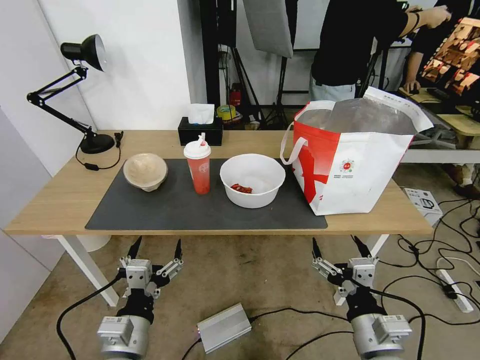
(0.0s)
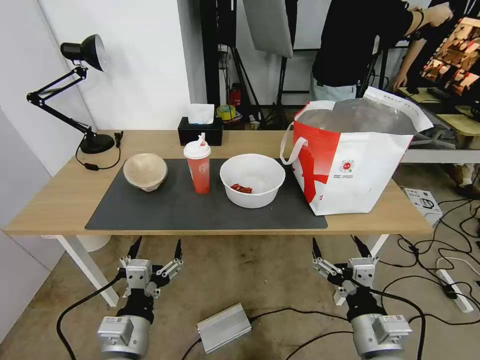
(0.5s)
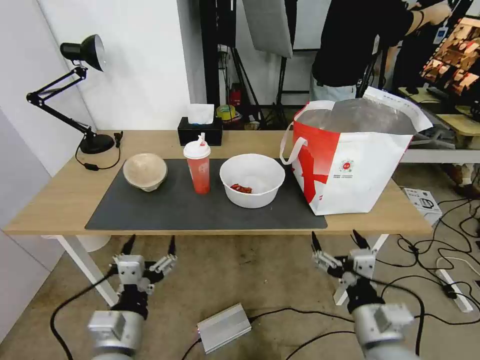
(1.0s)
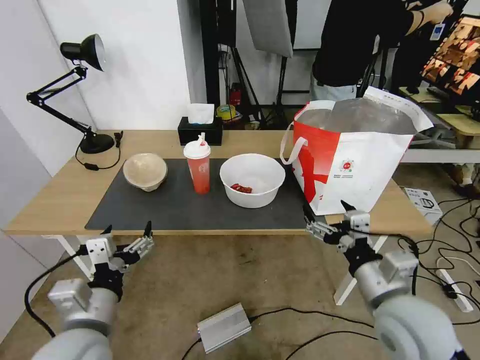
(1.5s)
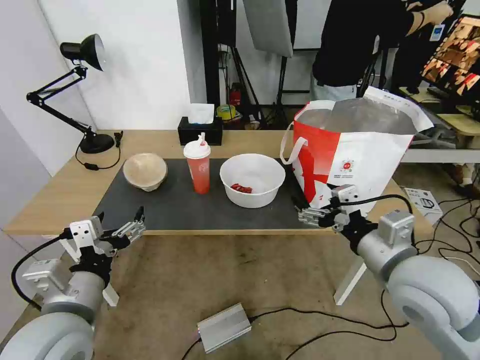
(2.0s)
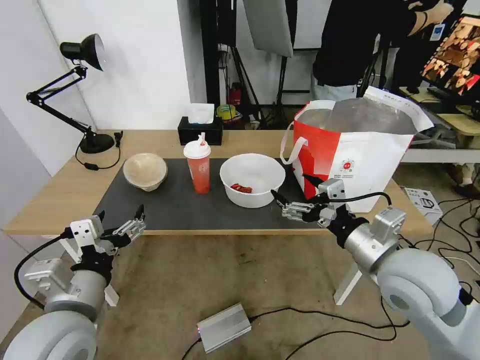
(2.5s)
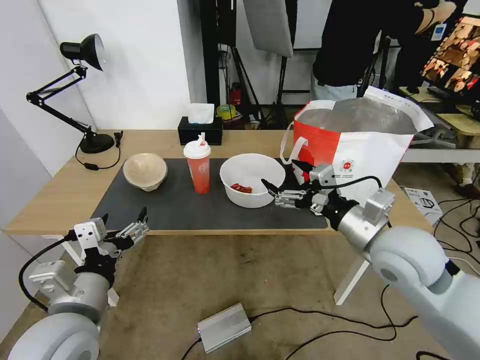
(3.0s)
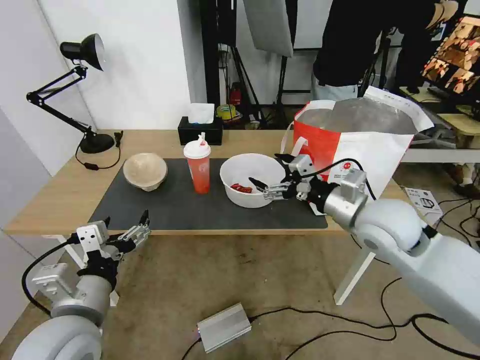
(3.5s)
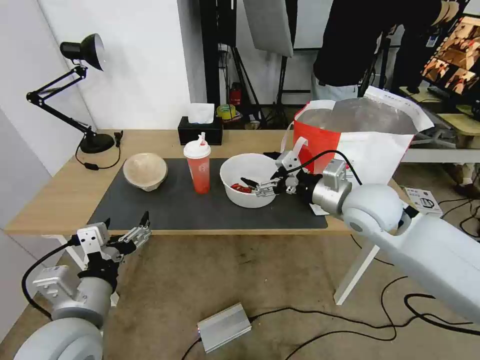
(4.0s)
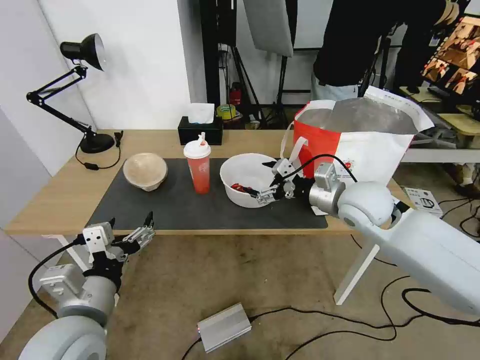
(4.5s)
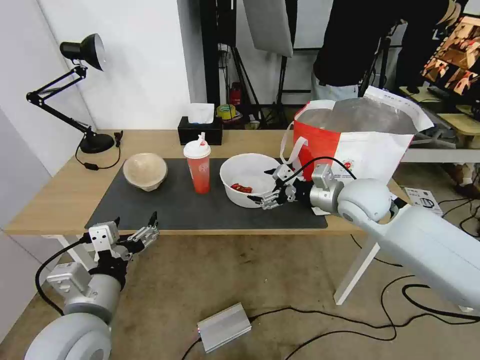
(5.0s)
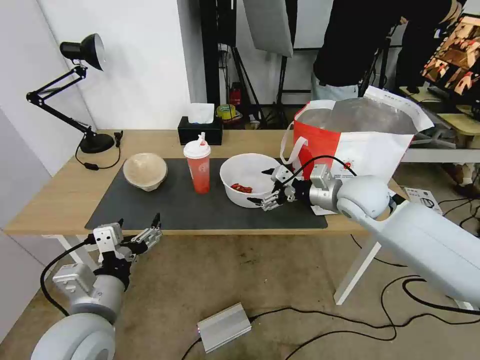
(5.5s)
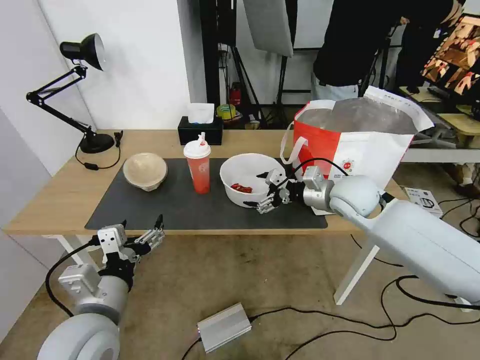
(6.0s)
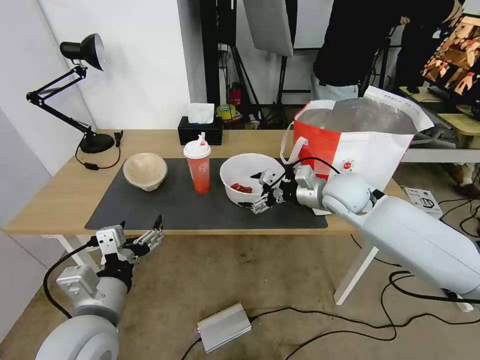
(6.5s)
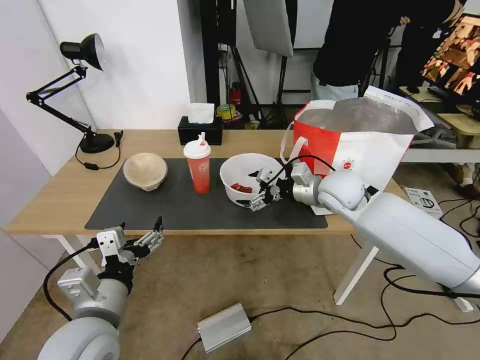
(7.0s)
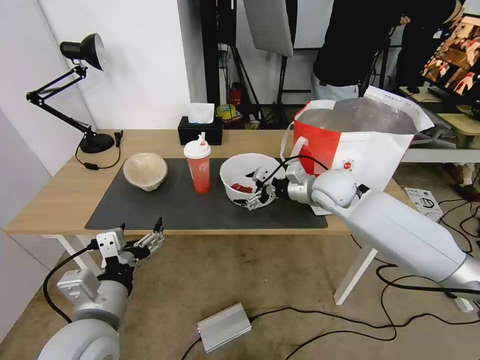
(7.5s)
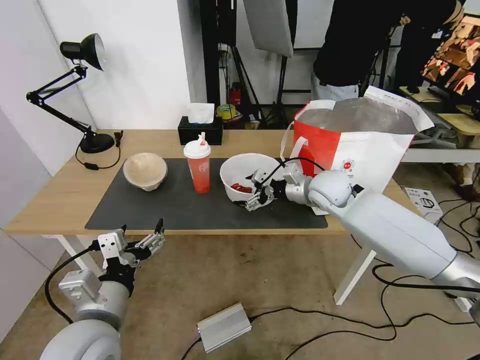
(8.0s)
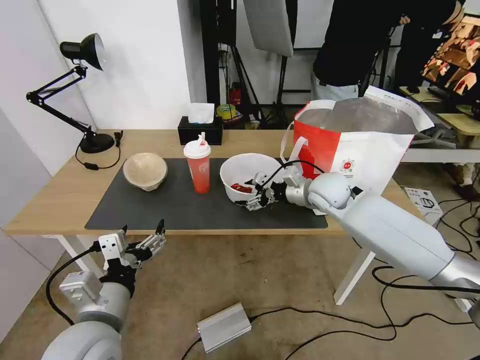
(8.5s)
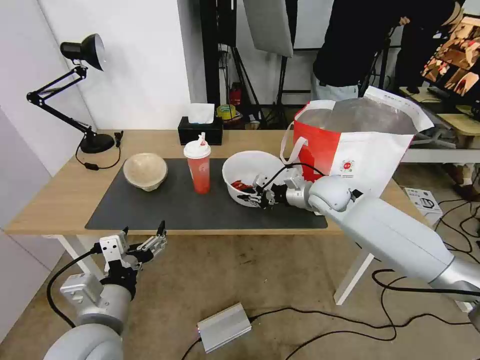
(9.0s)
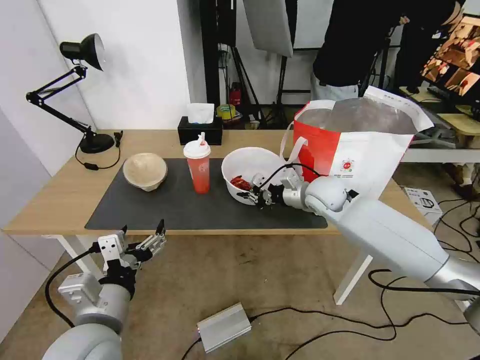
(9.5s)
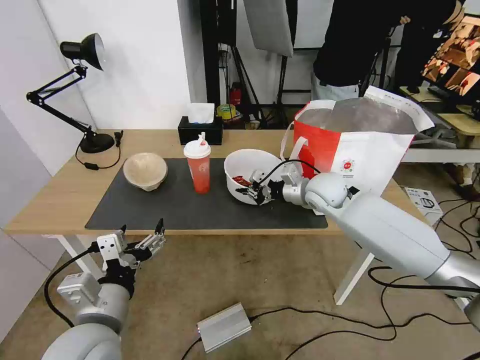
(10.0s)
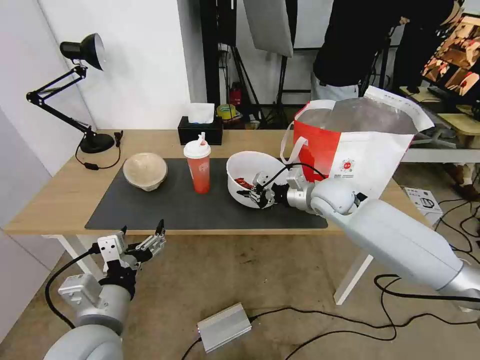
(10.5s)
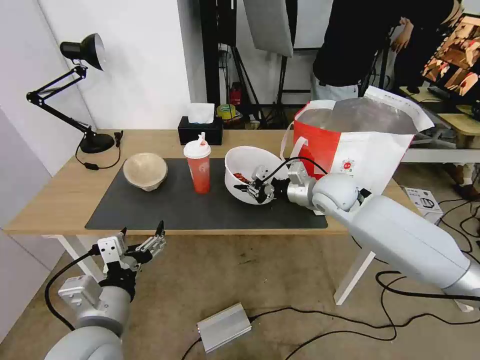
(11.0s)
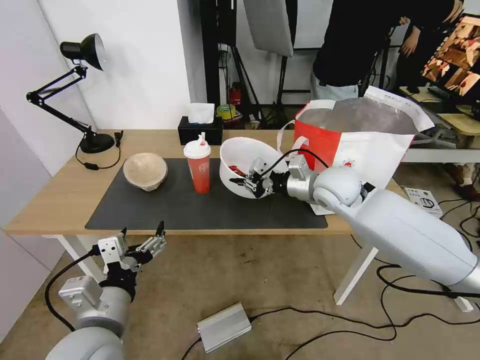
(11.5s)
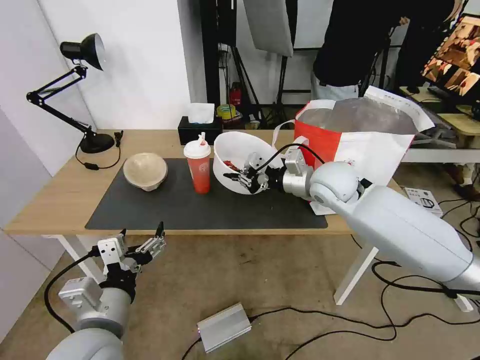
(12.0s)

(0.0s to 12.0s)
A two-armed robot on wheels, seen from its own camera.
Task of the whole recording: Pick up the trash from the table and place it into the takeout bag.
2.0s - 4.0s: The right gripper goes approximately 15 cm forward.
4.0s - 6.0s: The right gripper goes some 5 cm forward.
6.0s - 8.0s: The right gripper moves about 5 cm.
8.0s - 10.0s: The right gripper closes up.
10.0s - 12.0s: The right gripper travels upward by roughly 5 cm.

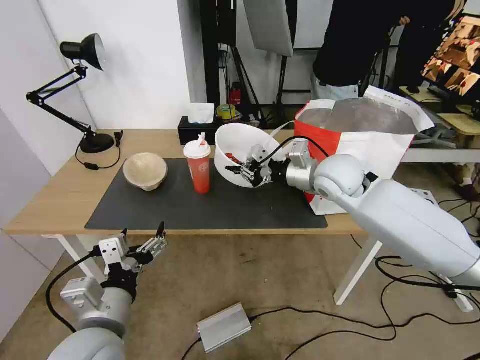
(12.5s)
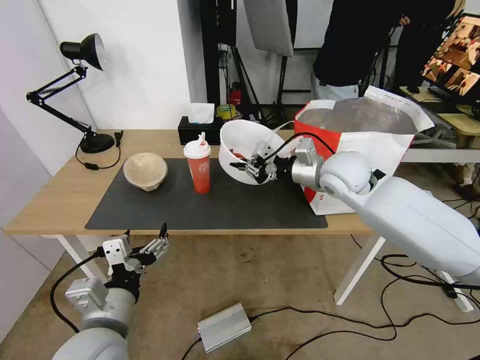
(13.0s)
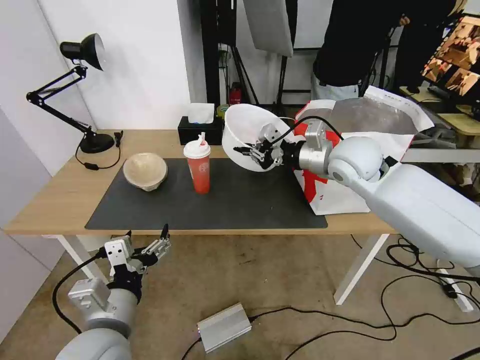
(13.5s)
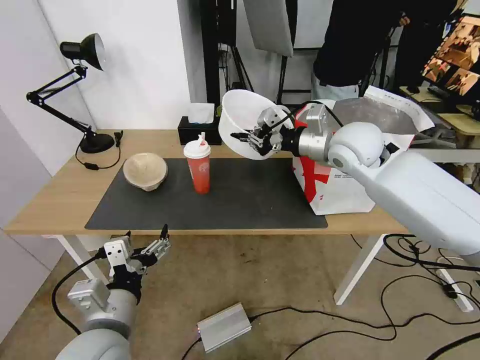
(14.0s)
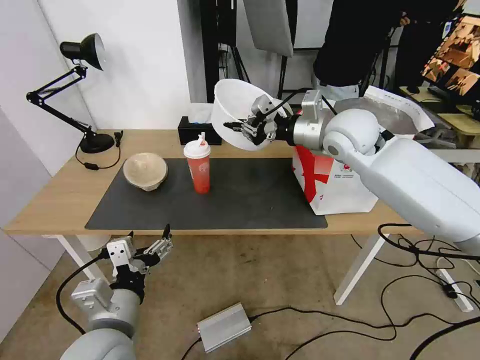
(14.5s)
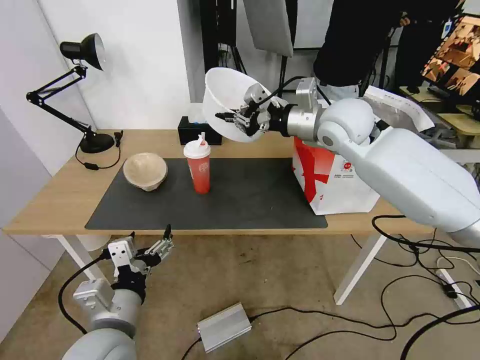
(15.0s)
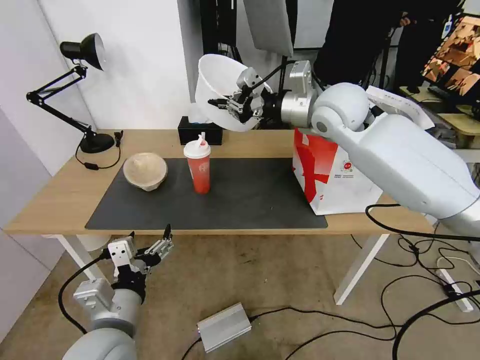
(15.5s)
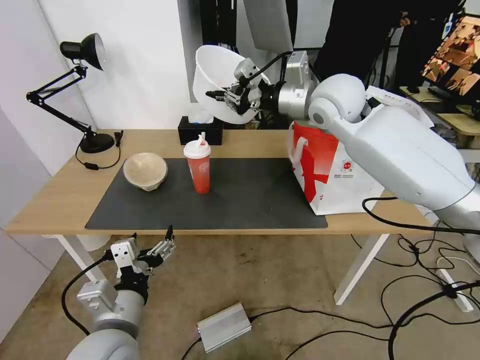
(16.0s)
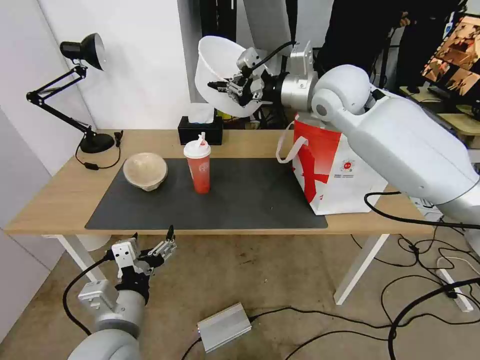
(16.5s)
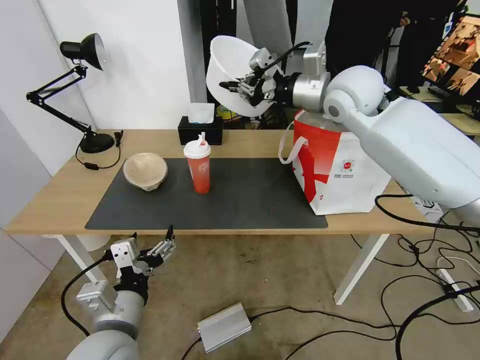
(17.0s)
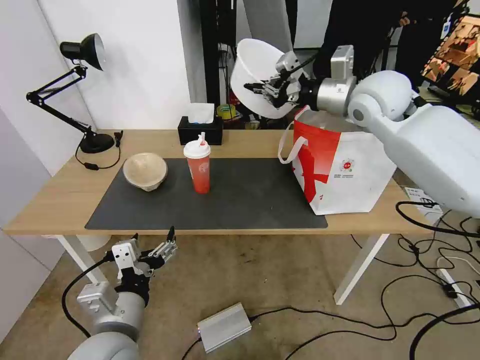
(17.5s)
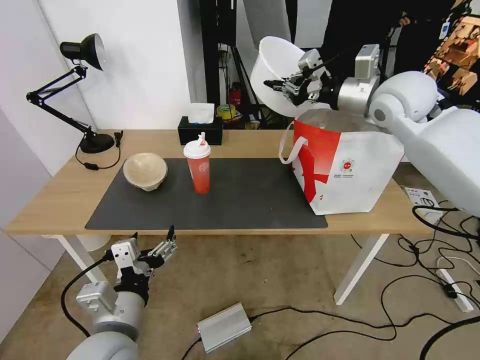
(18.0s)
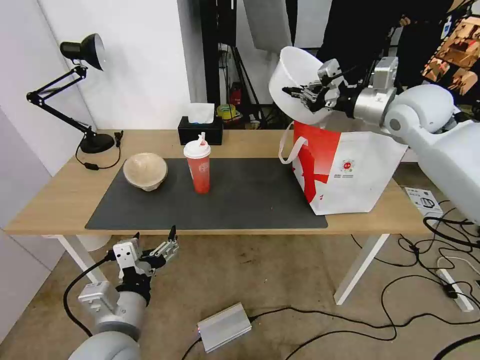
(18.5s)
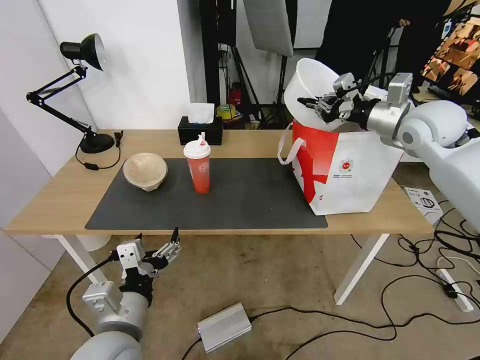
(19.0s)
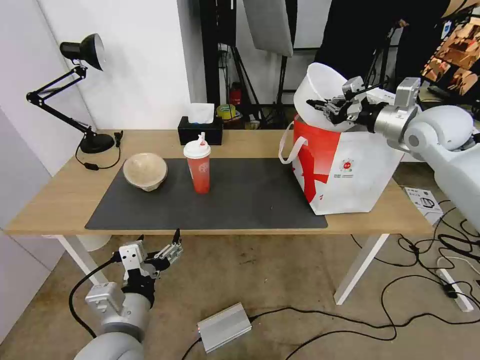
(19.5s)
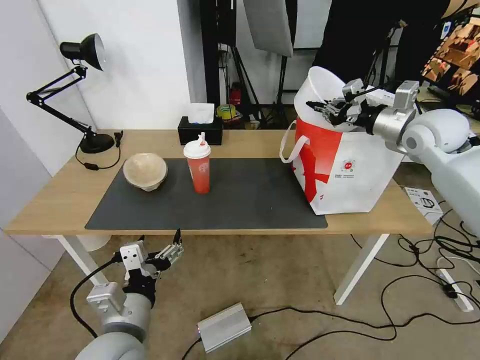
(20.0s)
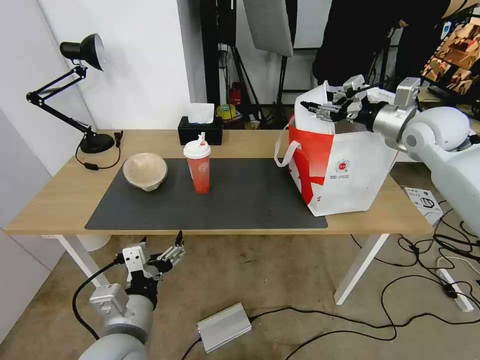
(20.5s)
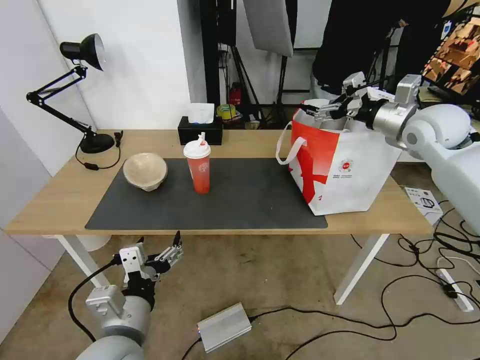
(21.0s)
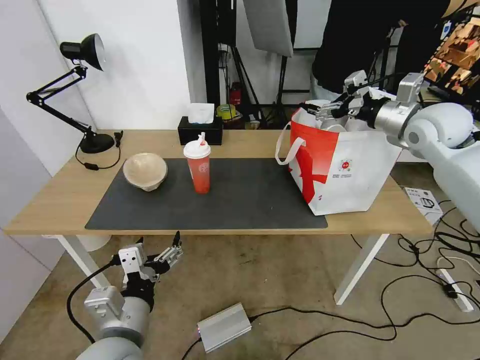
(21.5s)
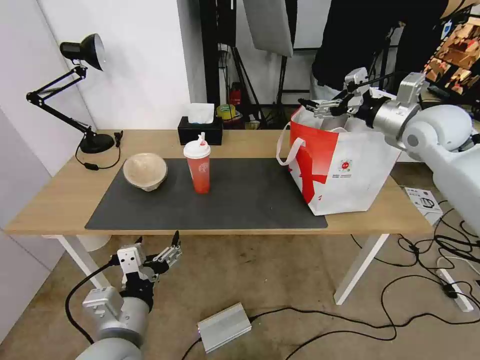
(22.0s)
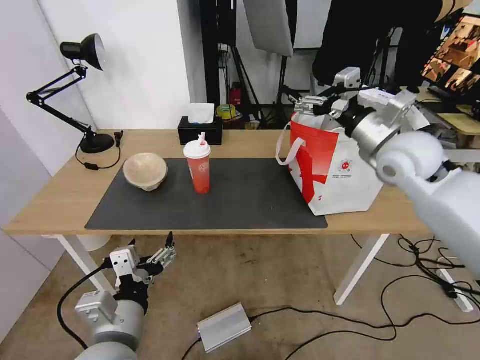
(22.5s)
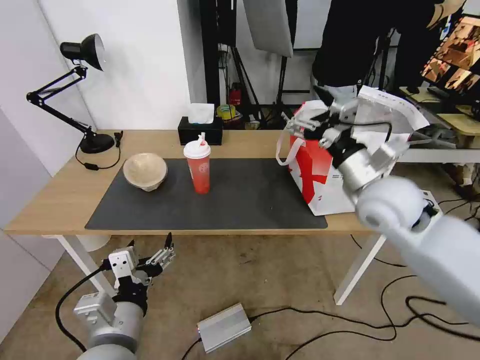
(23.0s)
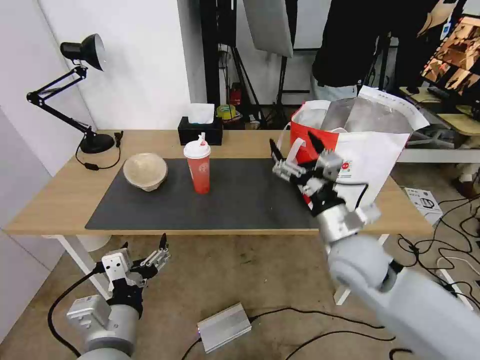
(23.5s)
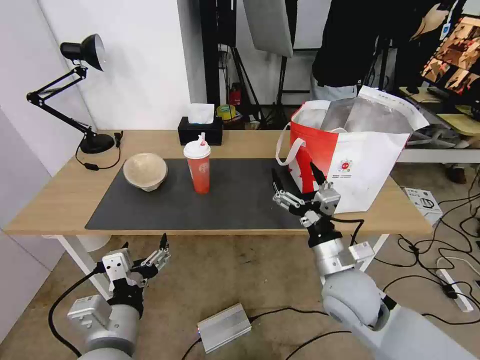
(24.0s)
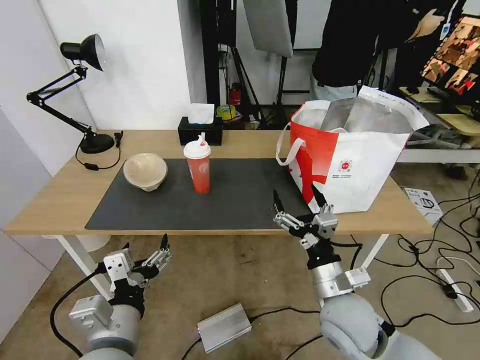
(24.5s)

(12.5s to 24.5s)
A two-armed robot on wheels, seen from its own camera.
Task of the whole recording: Pick up the trash from the table and place it into the takeout bag.
12.5s - 14.5s: The right gripper moves upward, approximately 10 cm.
14.5s - 16.5s: The right gripper heads upward, covering roughly 5 cm.
16.5s - 18.5s: The right gripper heads to the right, covering some 15 cm.
18.5s - 20.5s: The right gripper shifts approximately 5 cm to the right, and opens.
20.5s - 22.5s: The right gripper travels to the left and backward by some 10 cm, and opens.
22.5s - 24.5s: The right gripper moves downward, backward and to the left, some 35 cm.

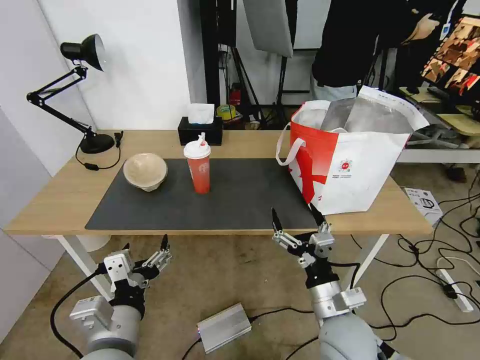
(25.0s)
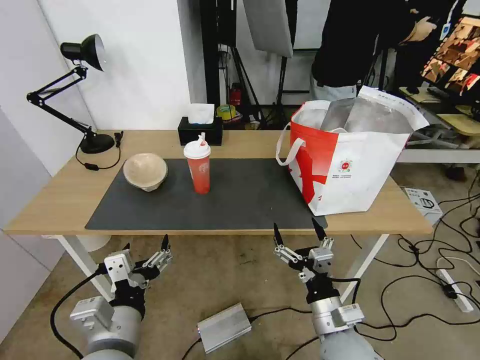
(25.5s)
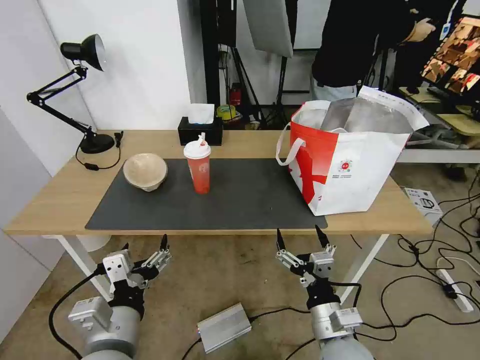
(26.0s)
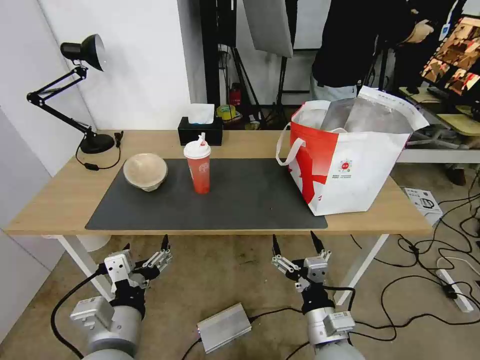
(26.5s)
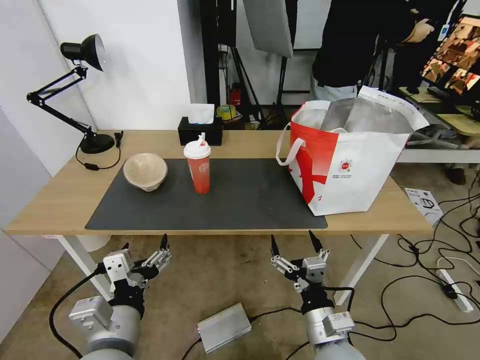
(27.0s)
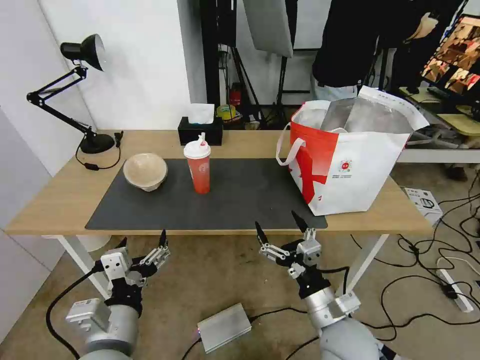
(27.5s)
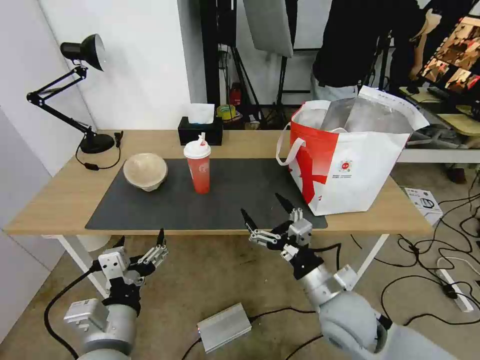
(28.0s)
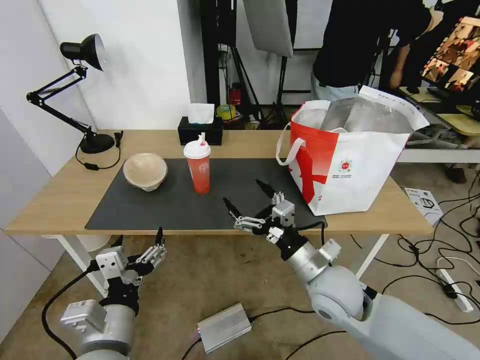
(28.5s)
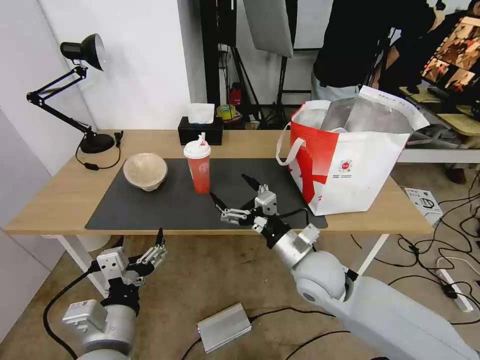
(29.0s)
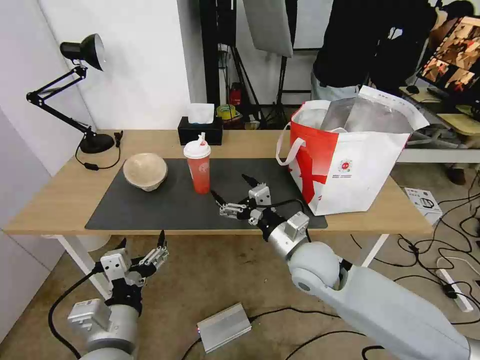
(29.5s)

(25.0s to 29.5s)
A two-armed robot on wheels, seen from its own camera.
Task of the whole recording: Pick up the trash from the table and place it into the takeout bag.
25.0s - 27.0s: The right gripper shifts by approximately 5 cm.
27.0s - 29.5s: The right gripper shifts about 20 cm forward and upward.
